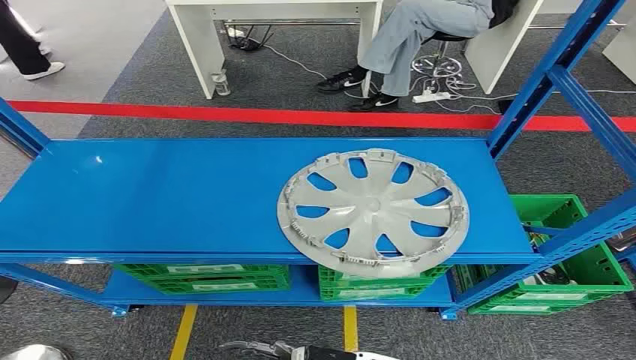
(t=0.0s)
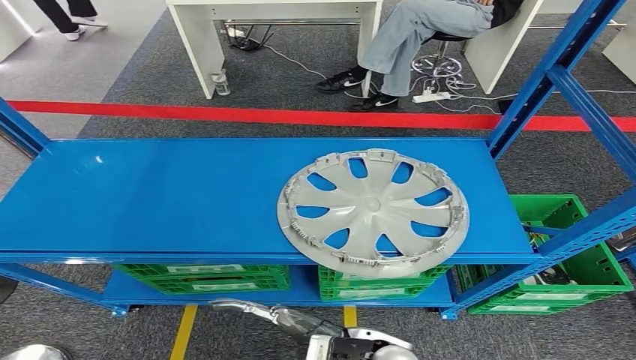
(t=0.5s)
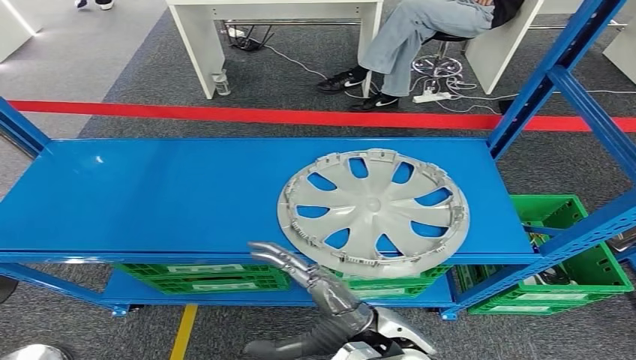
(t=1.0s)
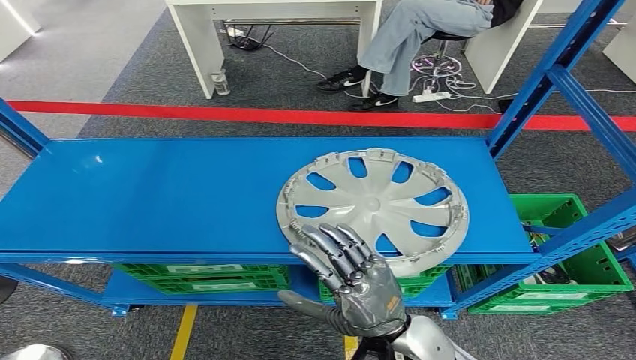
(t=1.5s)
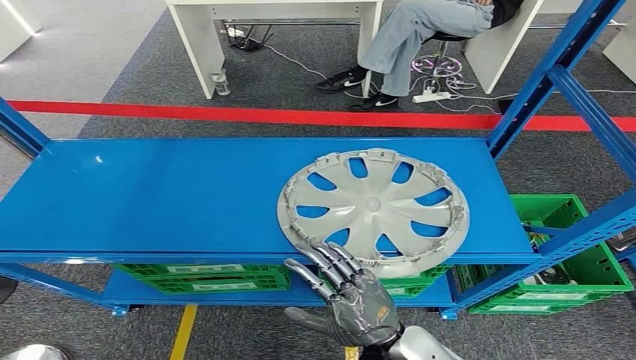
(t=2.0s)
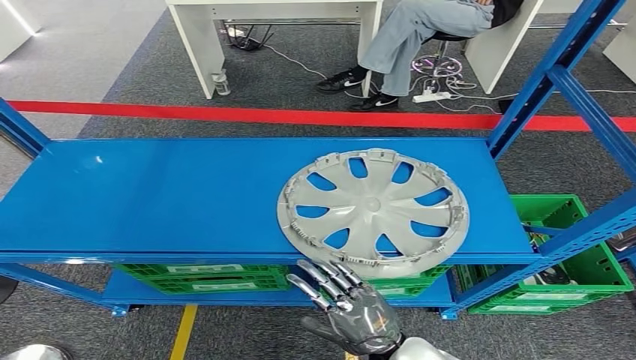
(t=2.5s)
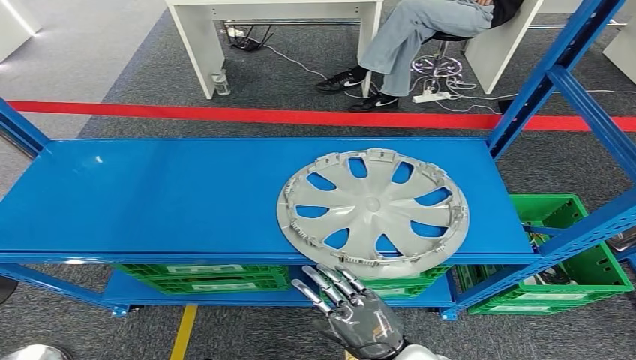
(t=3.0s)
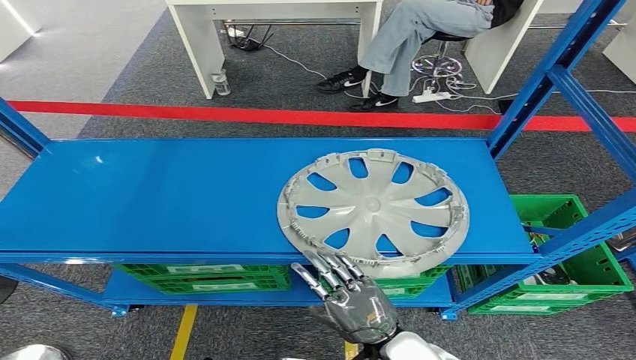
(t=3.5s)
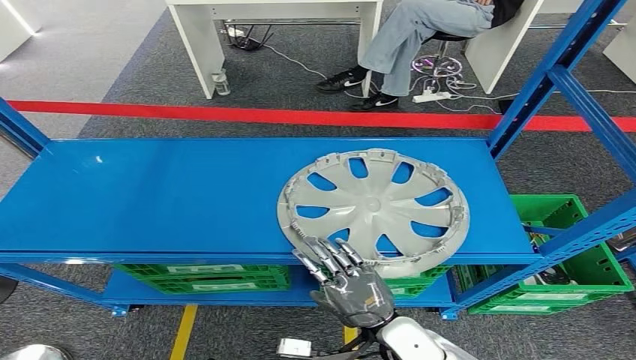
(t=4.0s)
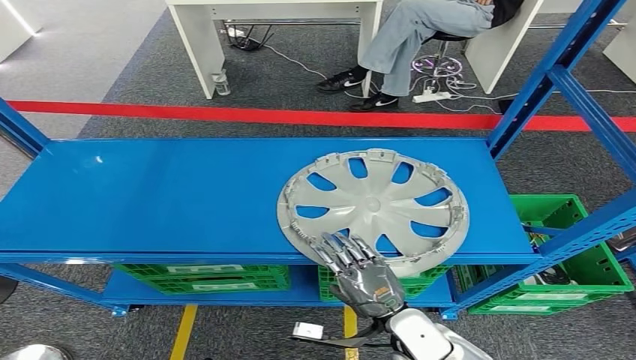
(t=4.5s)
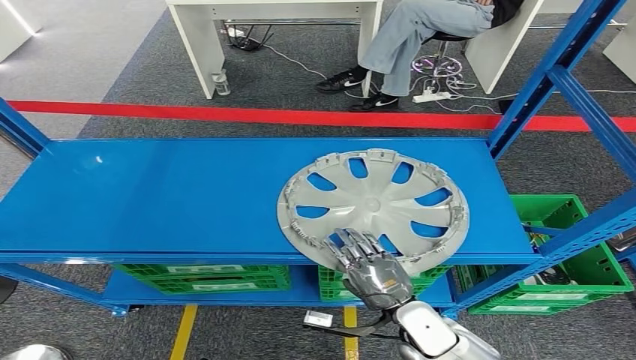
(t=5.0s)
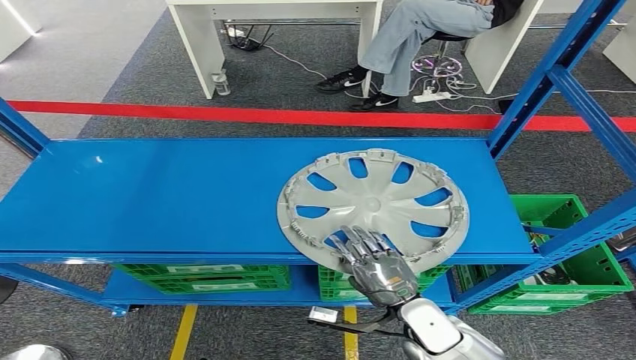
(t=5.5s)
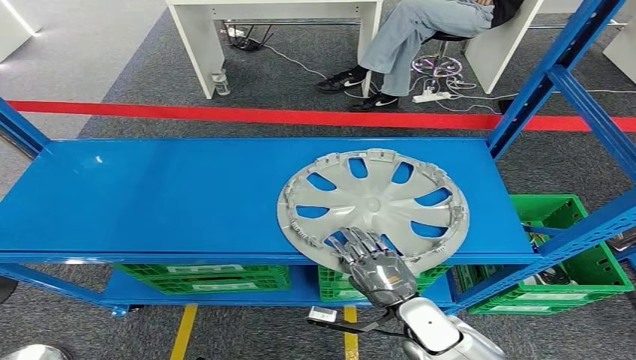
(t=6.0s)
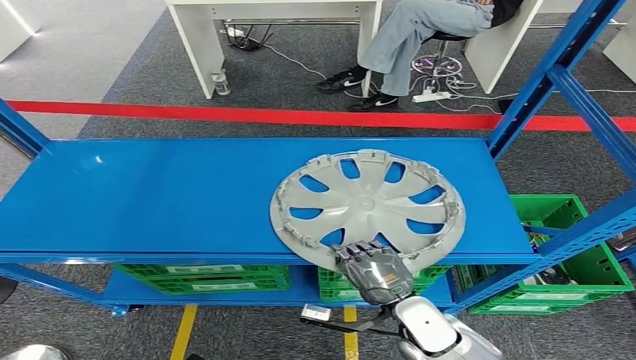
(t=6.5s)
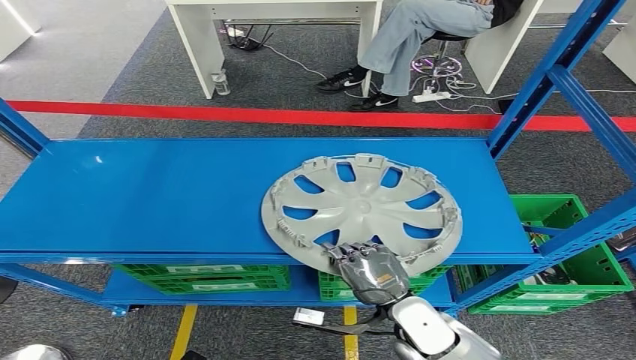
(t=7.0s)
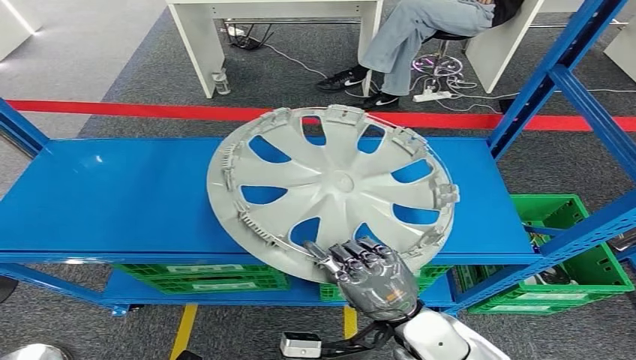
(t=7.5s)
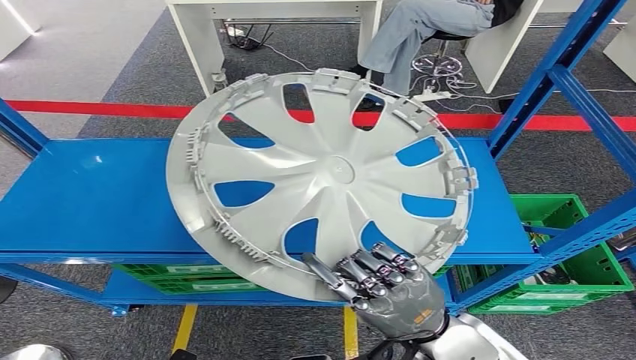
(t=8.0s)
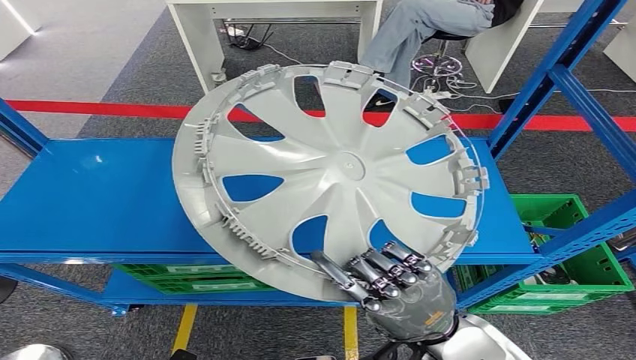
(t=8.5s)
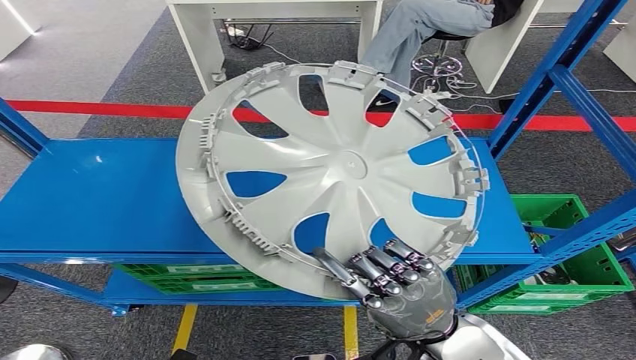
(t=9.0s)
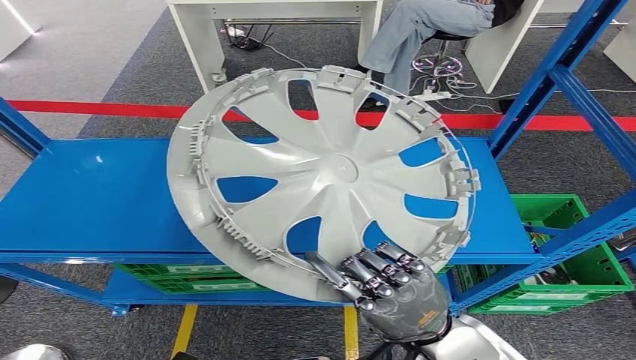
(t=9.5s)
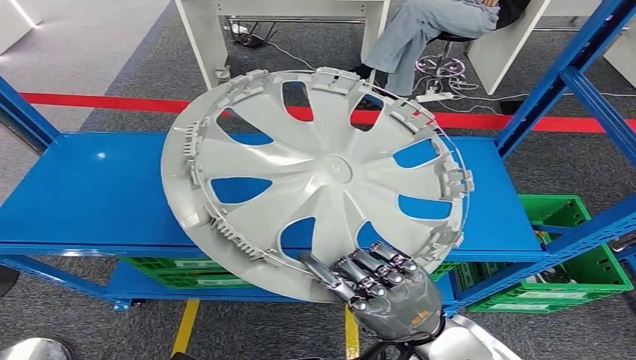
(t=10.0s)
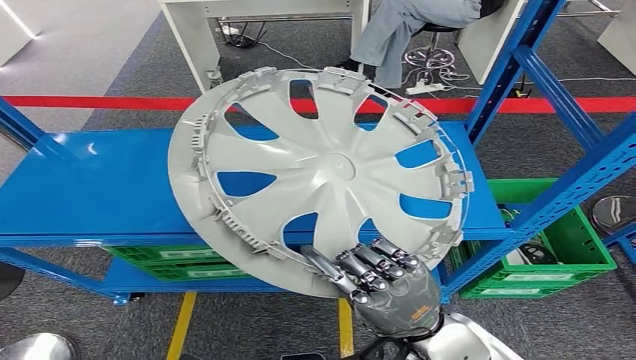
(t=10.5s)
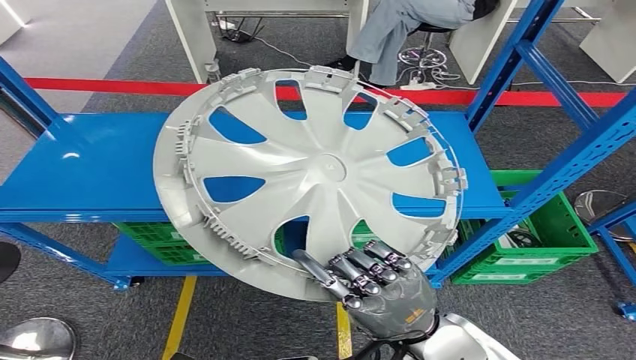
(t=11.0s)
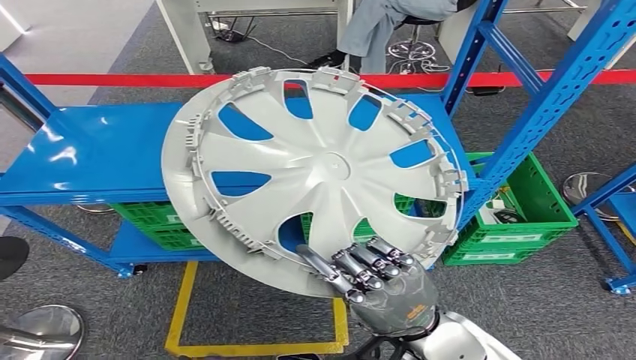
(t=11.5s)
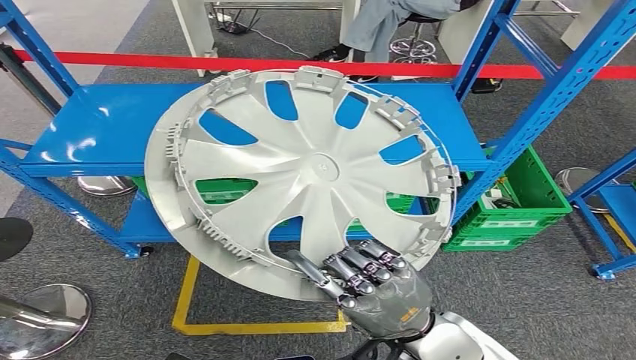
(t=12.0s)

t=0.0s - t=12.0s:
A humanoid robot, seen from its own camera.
Step, t=0.0s - t=11.5s: Pick up the small component from the shelf.
t=2.0s - t=4.0s: The right hand ends up roughly 5 cm from where it was.
t=4.0s - t=6.0s: The right hand shifts by approximately 5 cm.

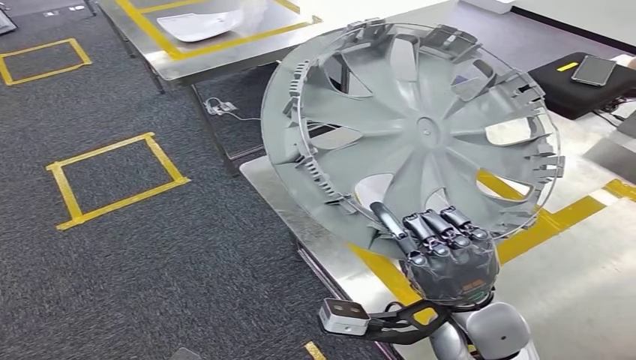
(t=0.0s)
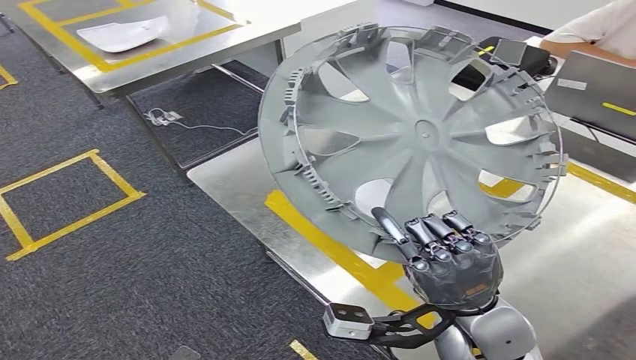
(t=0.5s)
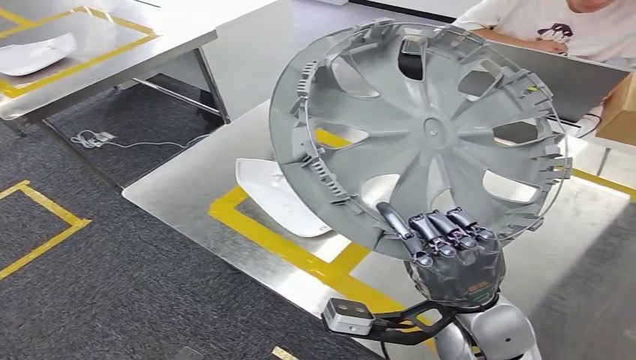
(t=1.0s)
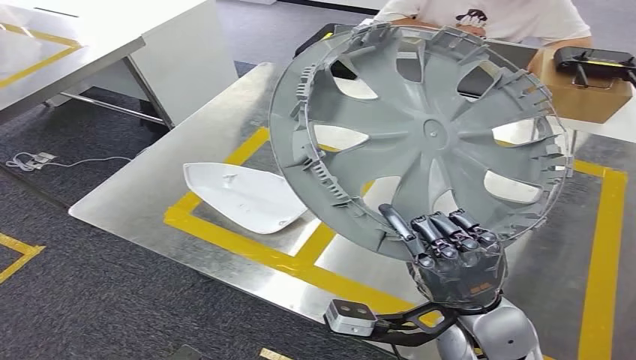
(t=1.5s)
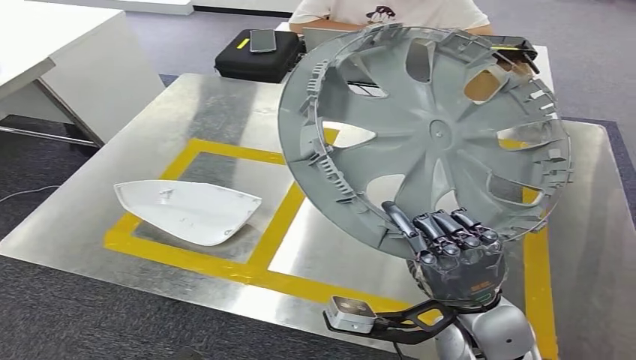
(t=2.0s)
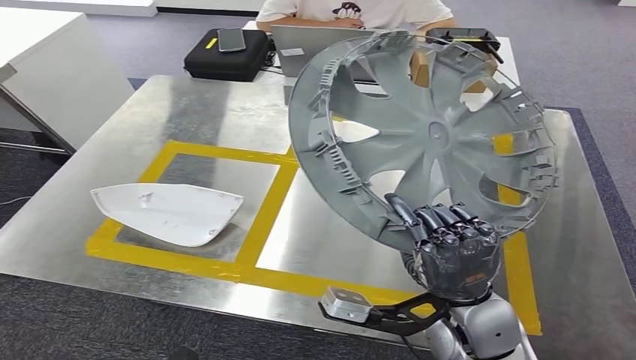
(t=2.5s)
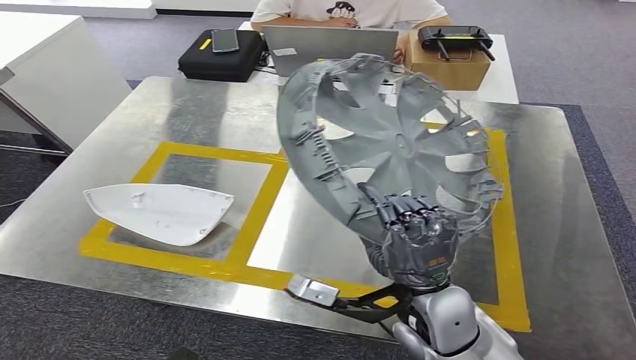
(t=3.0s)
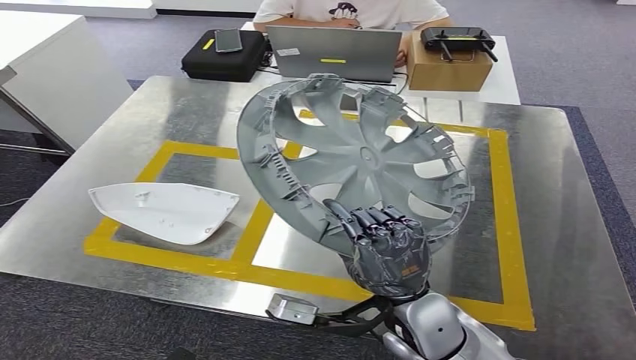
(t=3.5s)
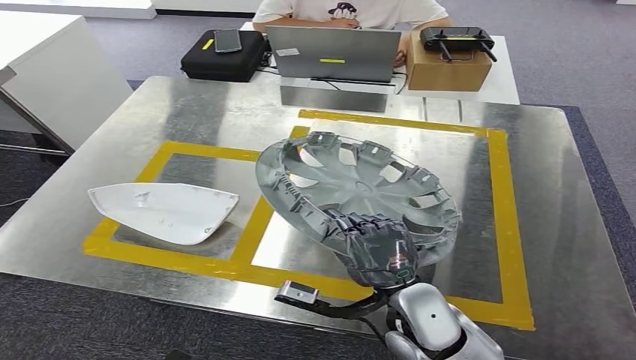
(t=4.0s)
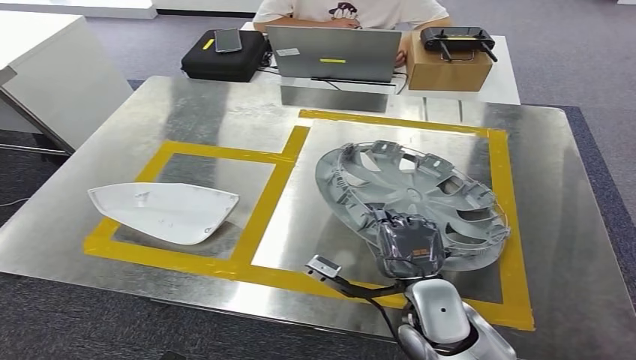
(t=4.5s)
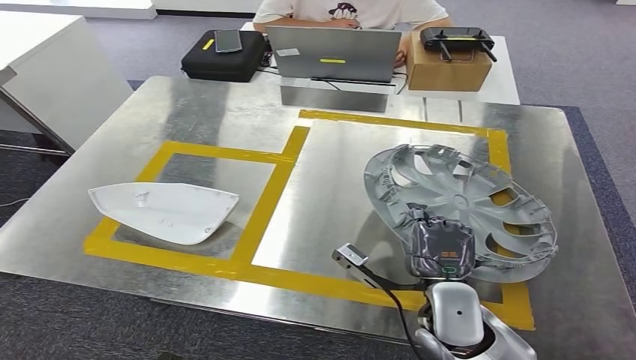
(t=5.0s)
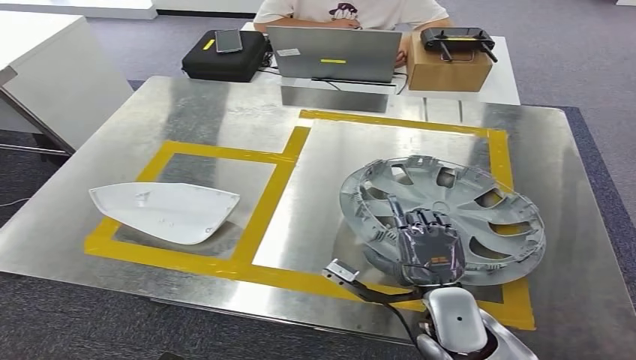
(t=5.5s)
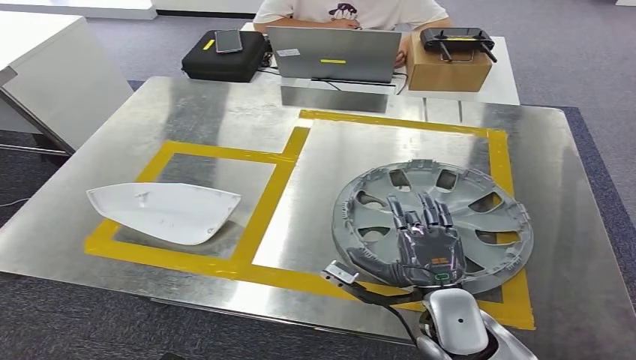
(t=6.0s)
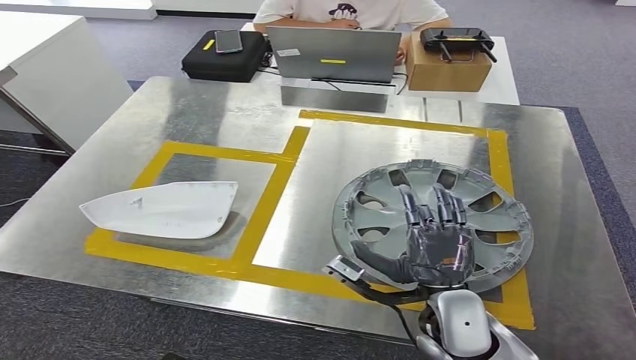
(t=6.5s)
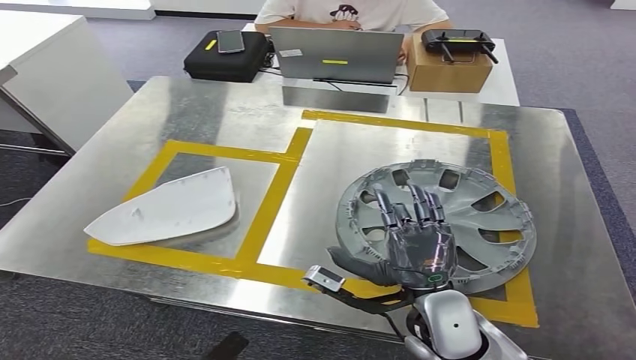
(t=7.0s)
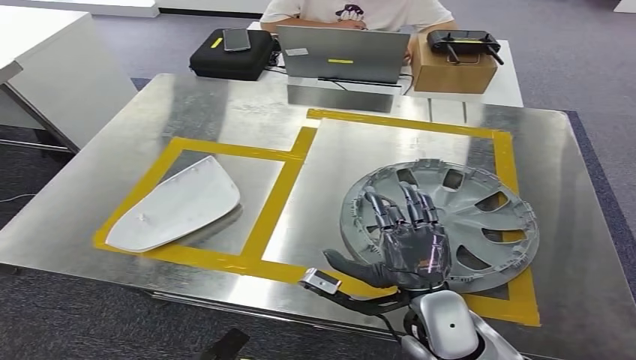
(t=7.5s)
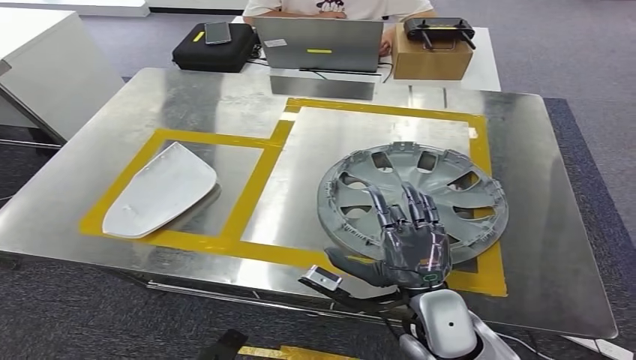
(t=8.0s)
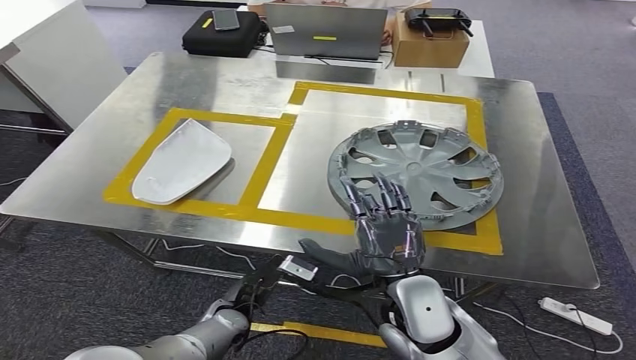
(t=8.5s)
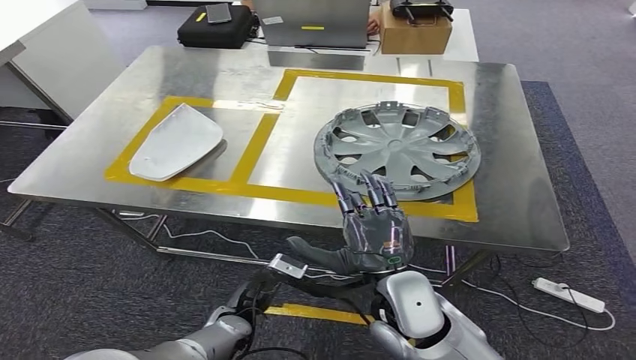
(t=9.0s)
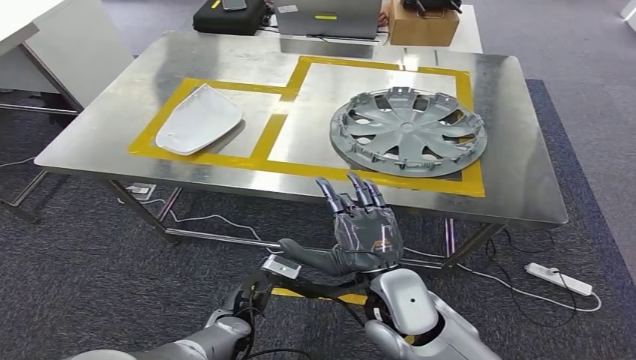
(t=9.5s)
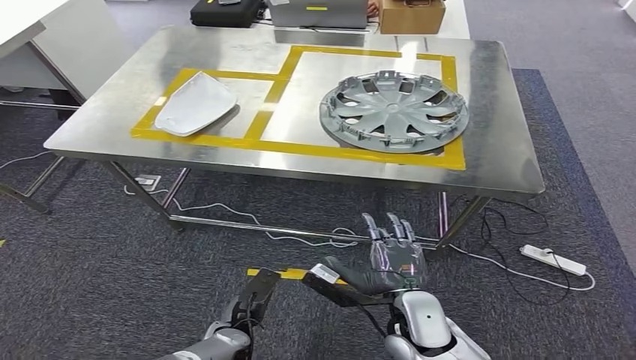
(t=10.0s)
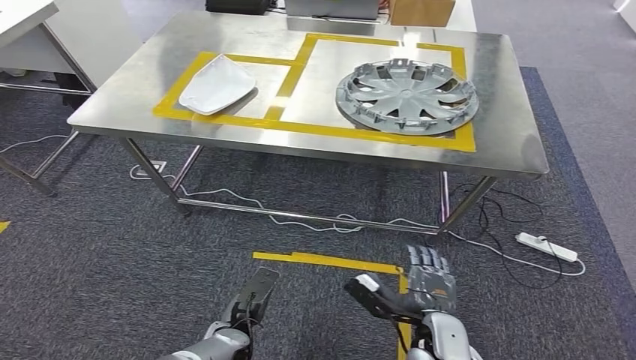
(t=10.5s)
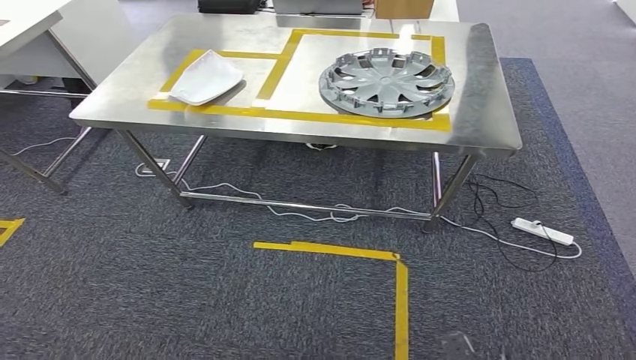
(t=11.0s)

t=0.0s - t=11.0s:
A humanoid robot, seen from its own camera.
Step, t=0.0s - t=3.0s: Bring the small component to the front of the workbench.
t=3.5s - t=5.5s: The right hand shifts roughly 5 cm to the right.
